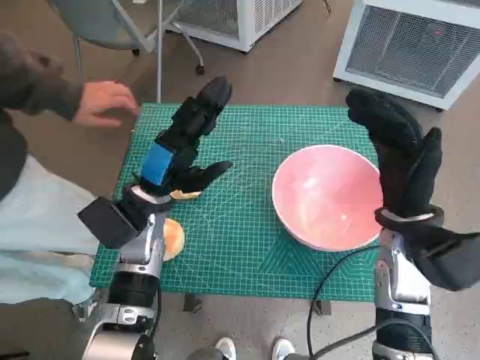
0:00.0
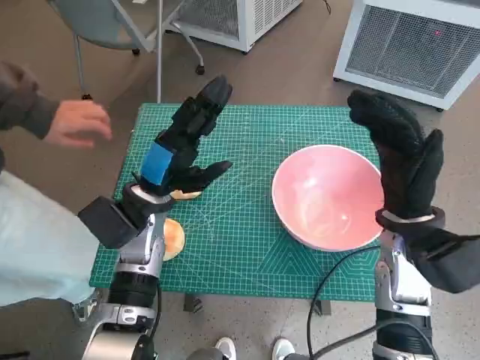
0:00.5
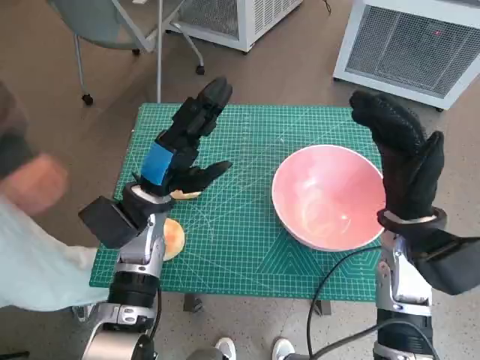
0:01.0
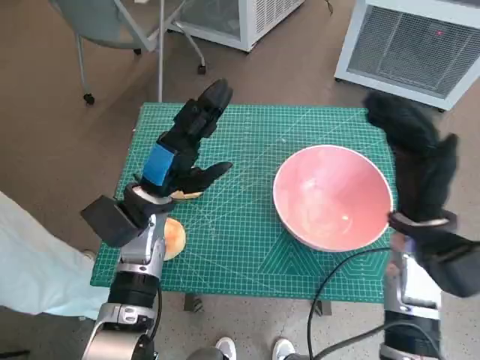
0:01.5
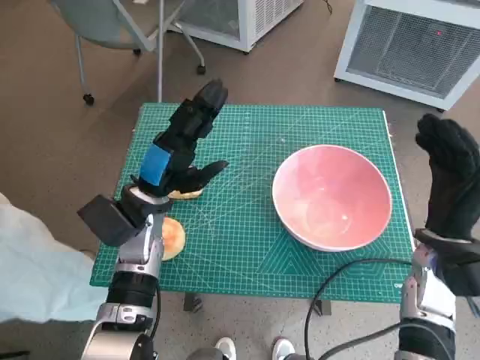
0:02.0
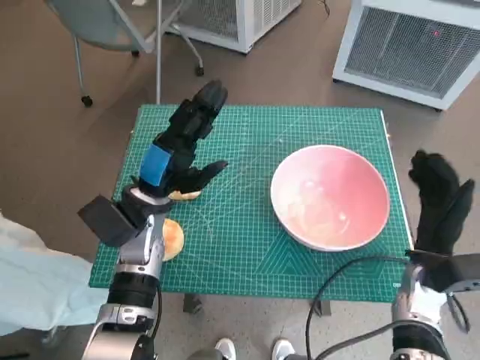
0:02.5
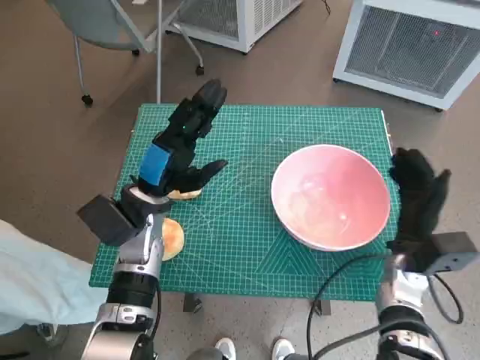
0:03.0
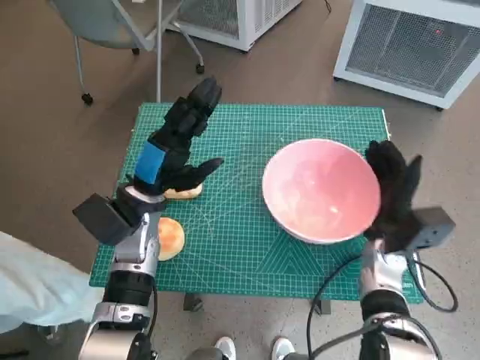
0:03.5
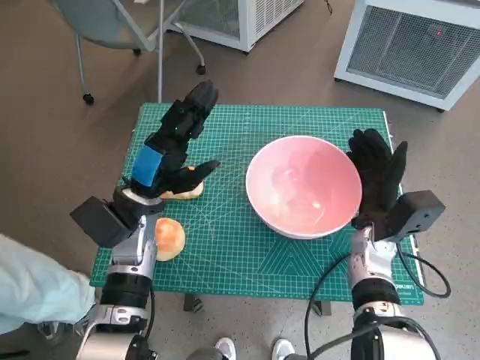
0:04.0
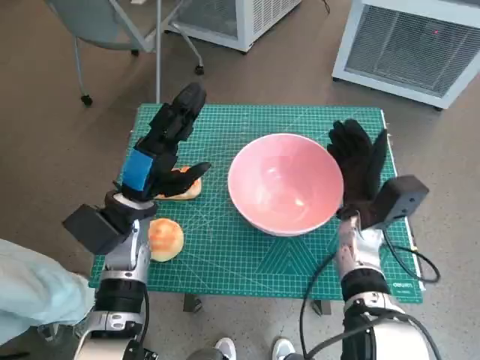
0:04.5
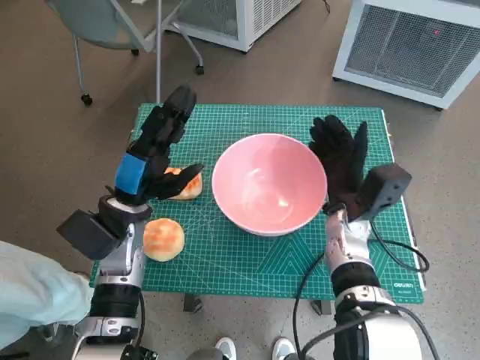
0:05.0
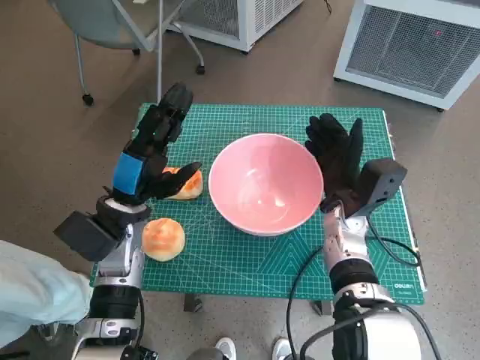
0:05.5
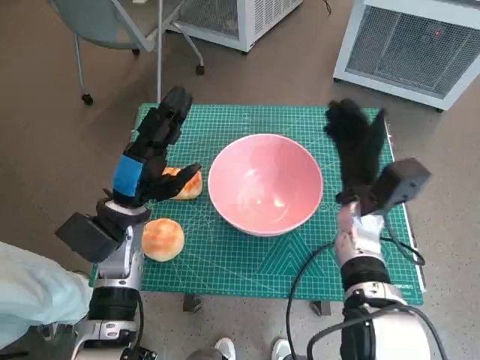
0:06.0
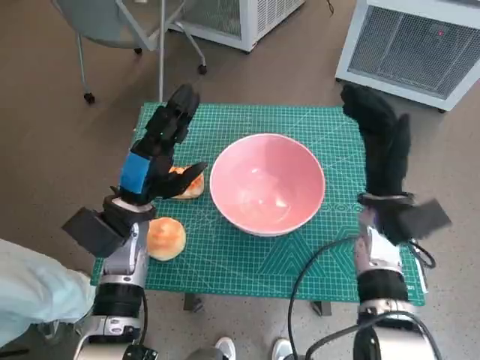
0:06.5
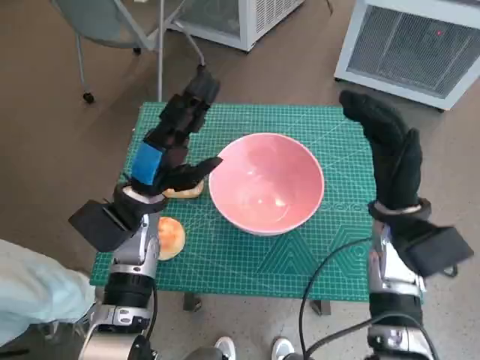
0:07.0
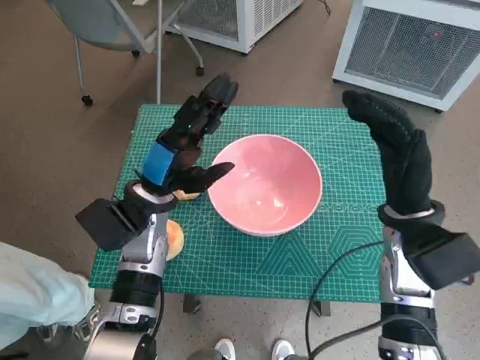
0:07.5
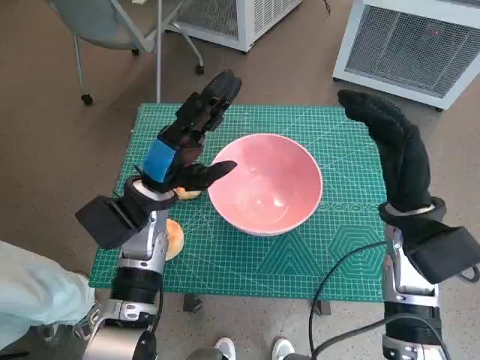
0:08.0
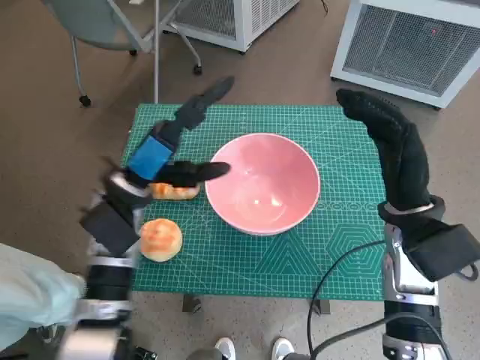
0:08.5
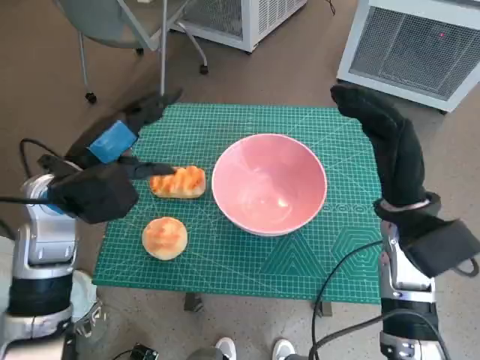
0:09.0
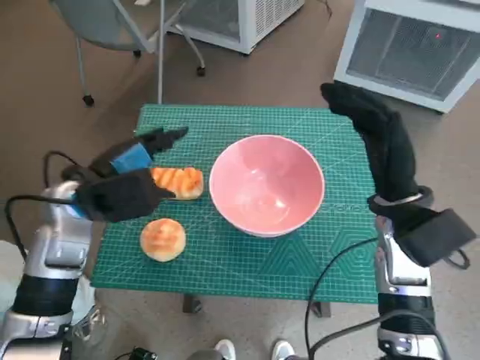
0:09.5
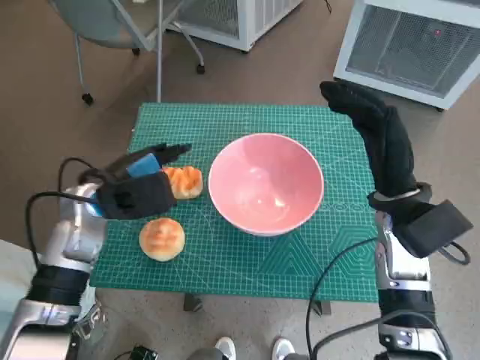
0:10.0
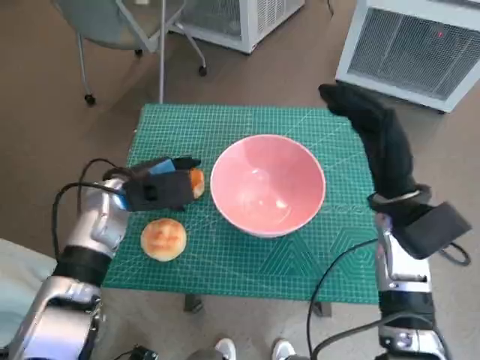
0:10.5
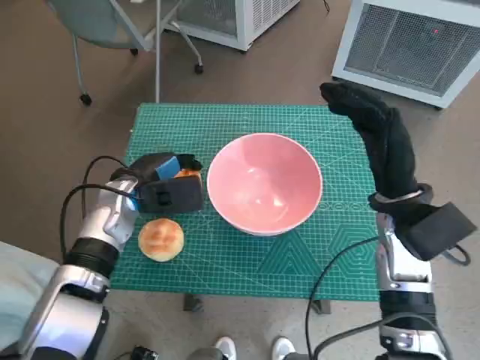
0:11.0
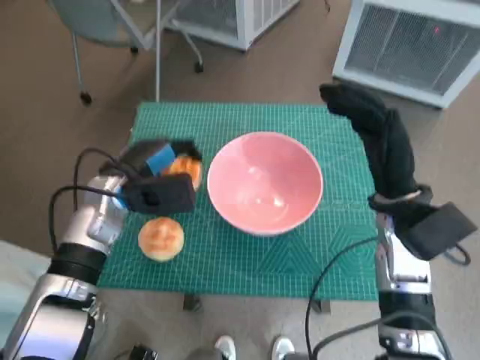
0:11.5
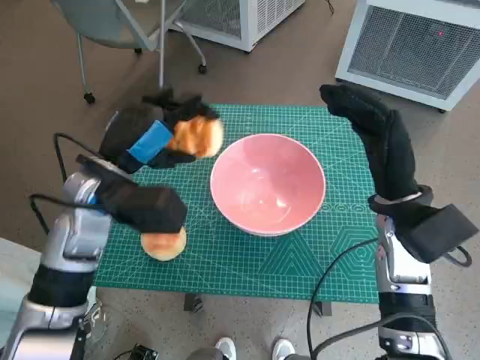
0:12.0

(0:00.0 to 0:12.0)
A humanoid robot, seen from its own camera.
Task of the whole recording: Push the bowl into the center of the table and put the bread into the bowl.
Step, 0:00.0 - 0:05.5: Move the pink bowl to the center of table with right hand.
Step, 0:06.0 - 0:10.5: Grasp the long bread with left hand.
0:02.0 - 0:04.0: The right hand heads to the left and downward, covering roughly 10 cm.
0:04.0 - 0:06.0: The right hand shifts by approximately 5 cm.
0:06.0 - 0:08.0: The right hand travels upward and backward by some 10 cm.
0:08.0 - 0:10.0: The left hand moves to the left, approximately 5 cm.
0:10.0 - 0:12.0: The left hand changes place by about 5 cm.

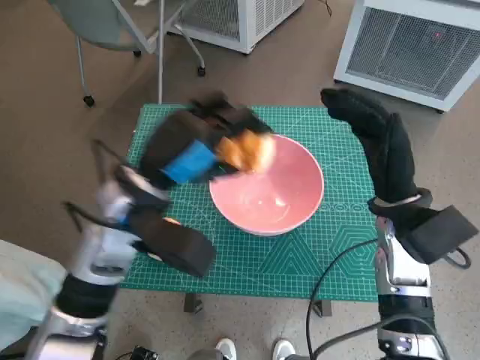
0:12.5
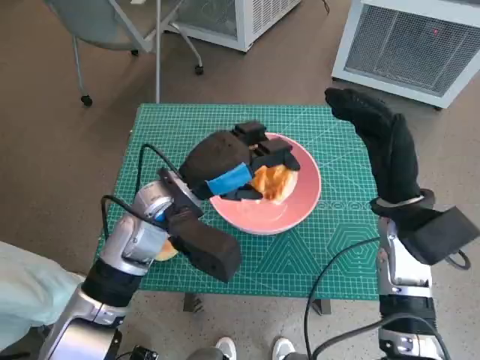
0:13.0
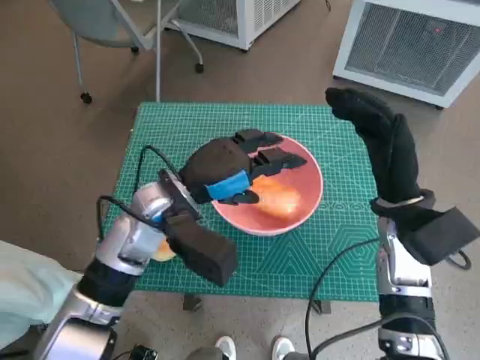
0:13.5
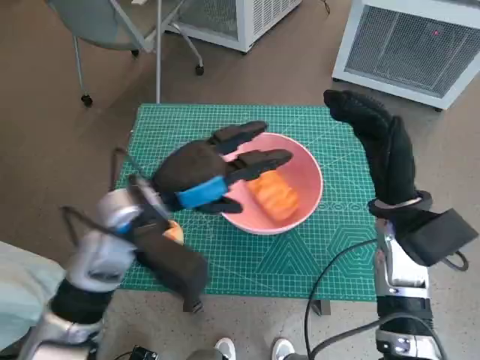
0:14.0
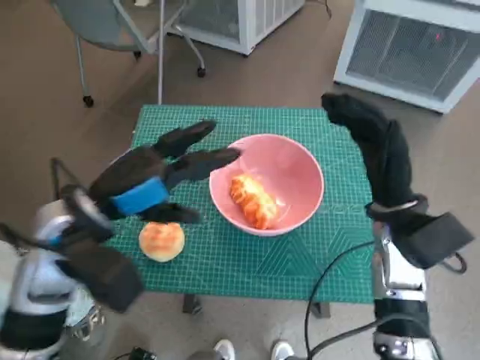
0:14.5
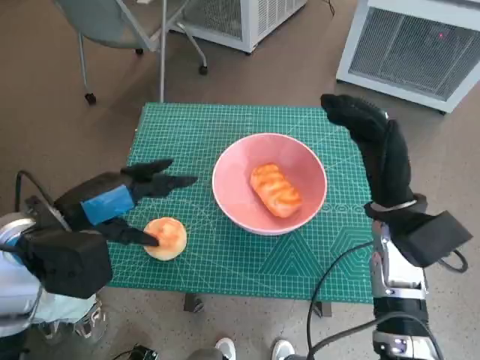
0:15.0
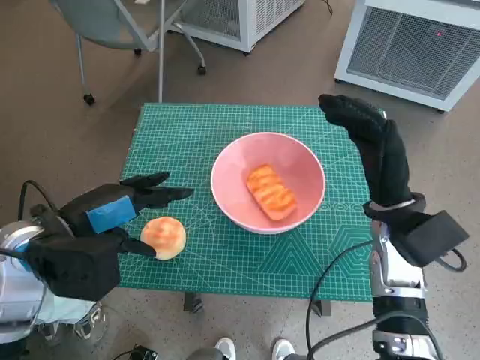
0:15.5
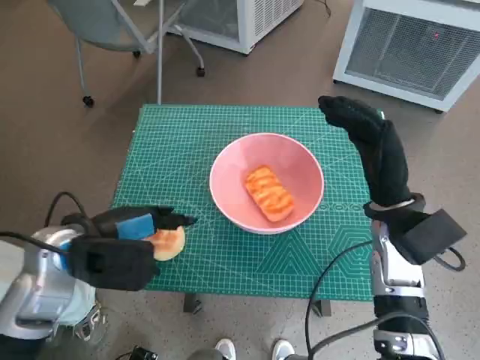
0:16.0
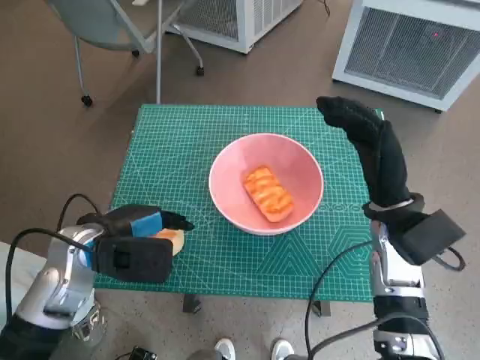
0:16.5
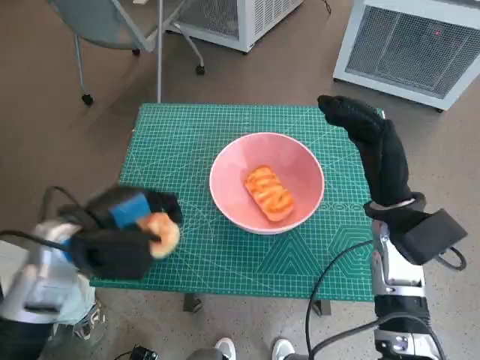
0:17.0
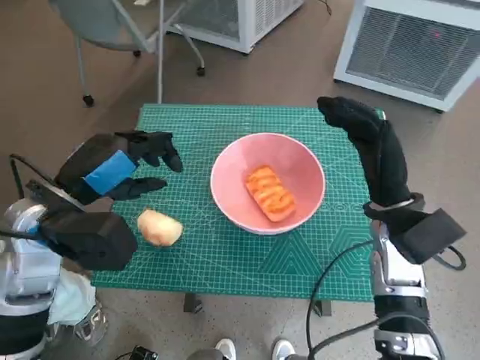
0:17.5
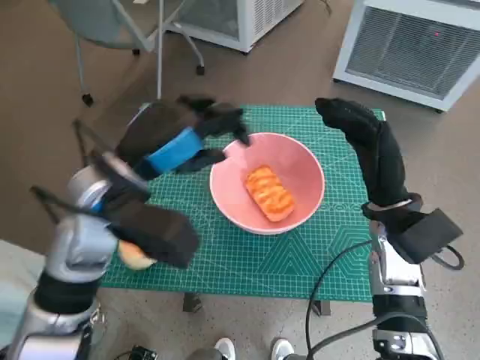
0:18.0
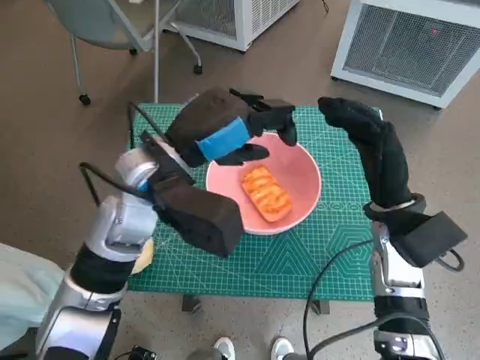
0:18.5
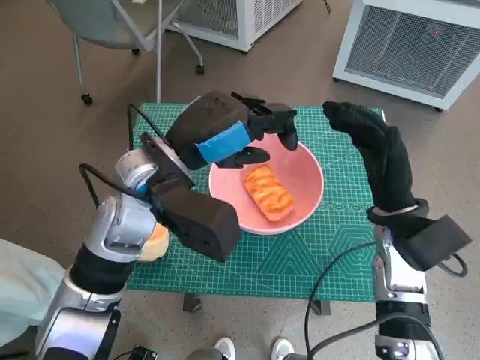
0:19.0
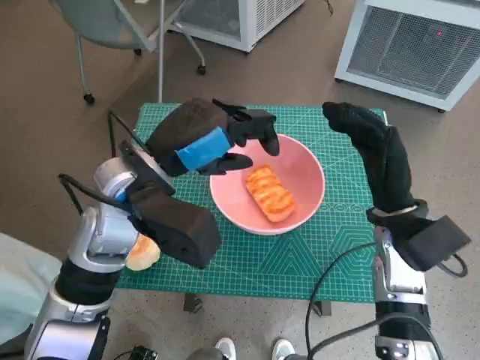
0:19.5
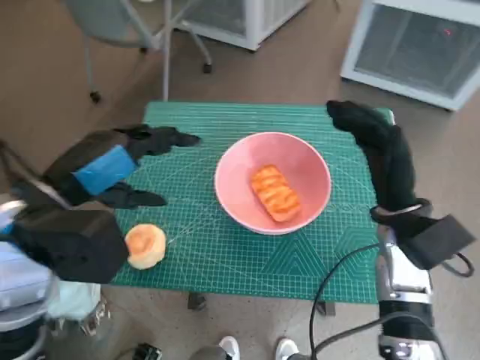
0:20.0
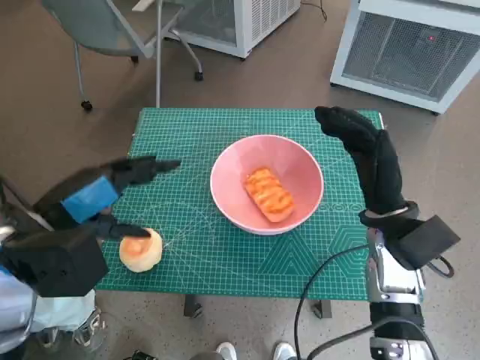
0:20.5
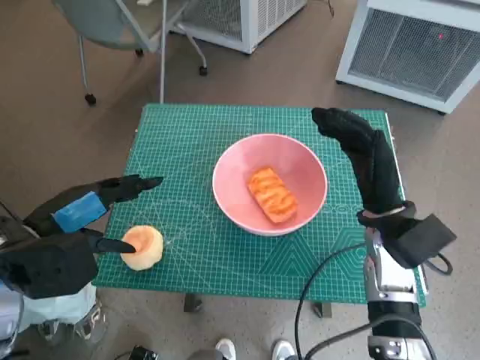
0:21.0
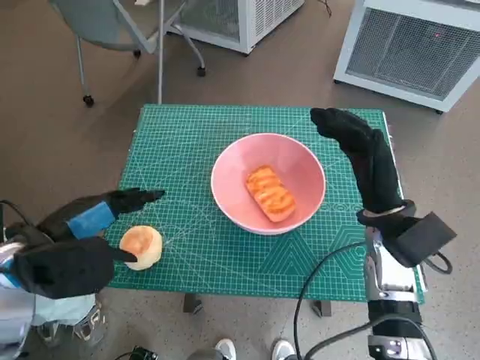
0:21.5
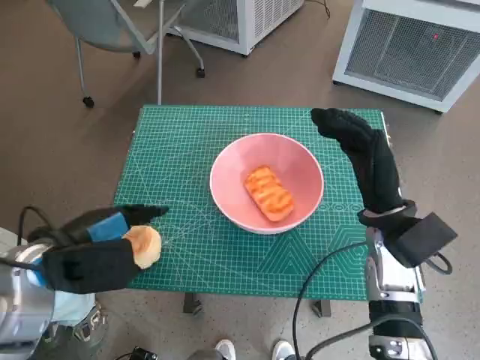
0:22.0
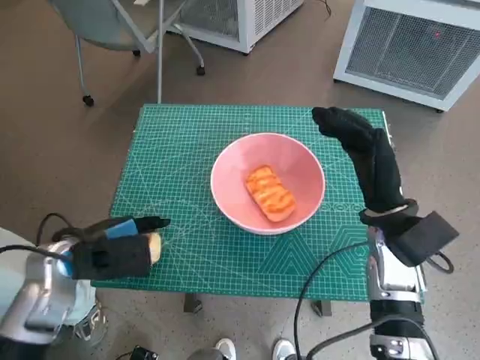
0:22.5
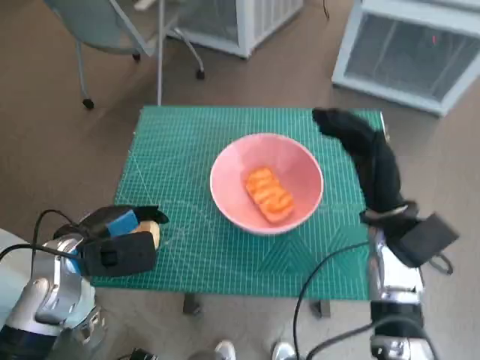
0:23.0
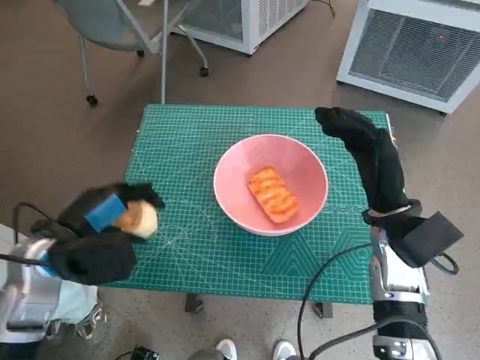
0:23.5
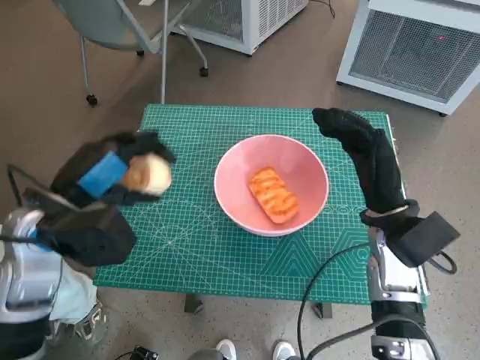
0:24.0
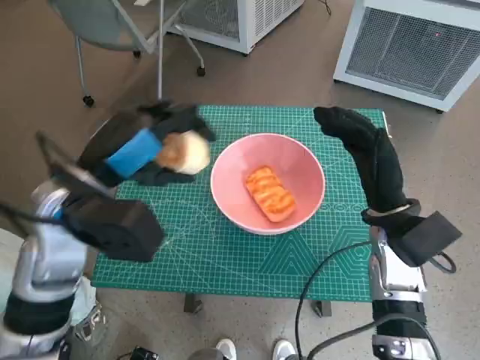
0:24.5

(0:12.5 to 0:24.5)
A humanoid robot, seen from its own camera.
Task of the whole recording: Push the bowl into the center of the table and put the bread into the bowl.
Step, 0:14.0 - 0:16.0: Grasp the round bread with left hand.
Step, 0:17.0 - 0:22.5: Grasp the round bread with left hand.
0:12.5 - 0:14.5: The left hand is displaced to the left by roughly 5 cm.
0:14.5 - 0:16.5: The left hand is displaced downward by about 5 cm.
0:16.5 - 0:18.5: The left hand shifts roughly 15 cm to the right and upward.
0:18.5 - 0:20.5: The left hand shifts roughly 15 cm to the left and backward.
0:20.5 - 0:22.5: The left hand shifts roughly 10 cm downward.
0:22.5 - 0:24.5: The left hand moves upward and to the right, some 10 cm.

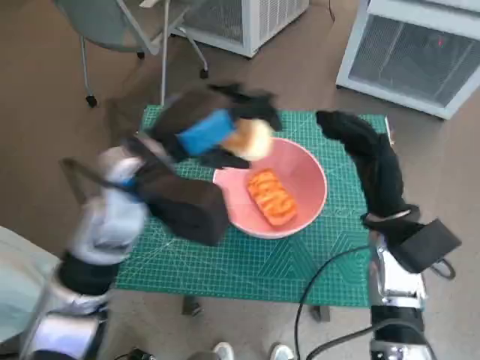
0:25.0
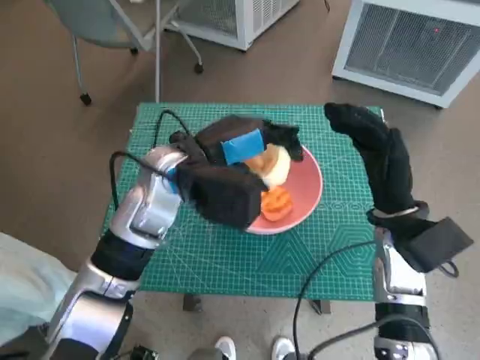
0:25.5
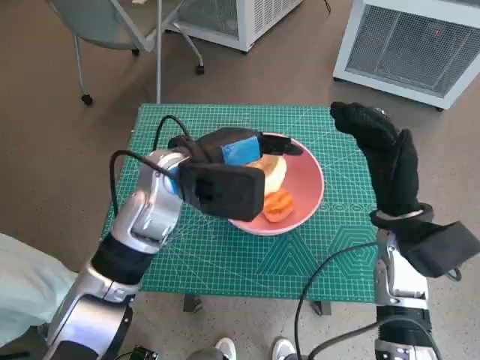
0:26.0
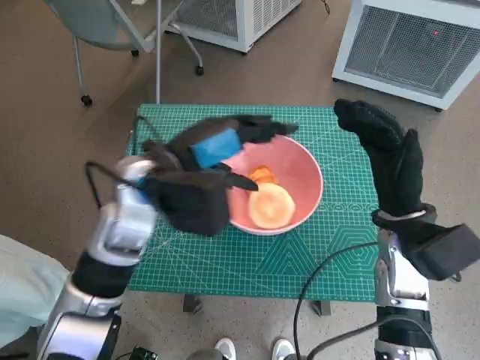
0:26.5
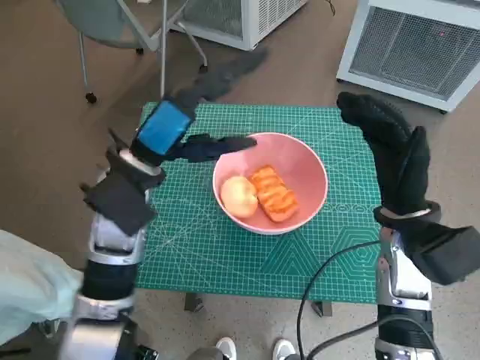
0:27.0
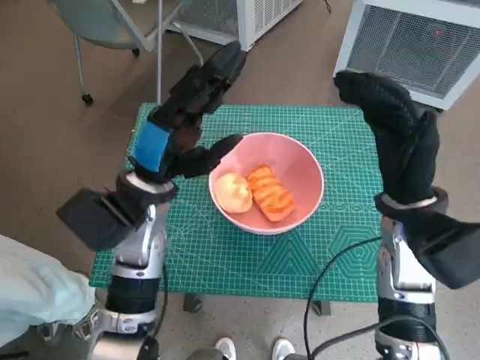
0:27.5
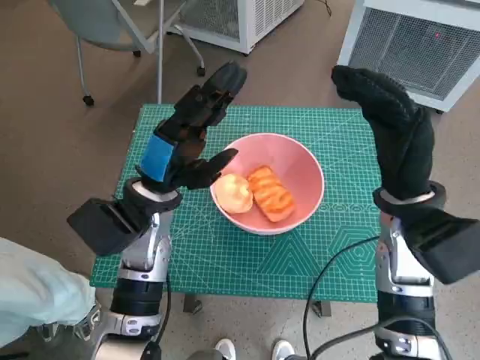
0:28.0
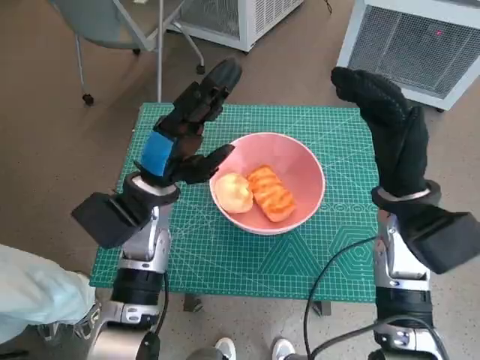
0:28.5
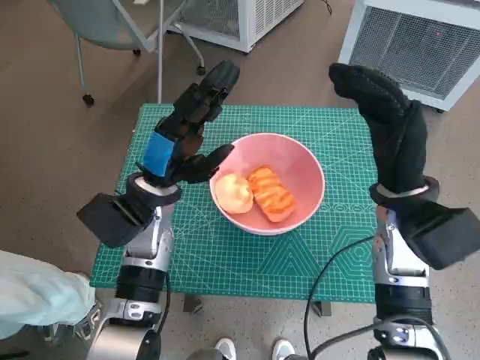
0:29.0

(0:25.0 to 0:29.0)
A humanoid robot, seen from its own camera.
Task of the whole recording: Push the bowl into the center of the table and put the bread into the bowl.
0:27.0 - 0:29.0: The left hand moves downward, some 5 cm.
